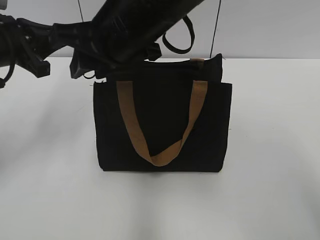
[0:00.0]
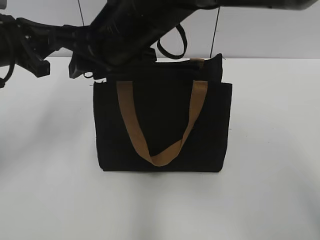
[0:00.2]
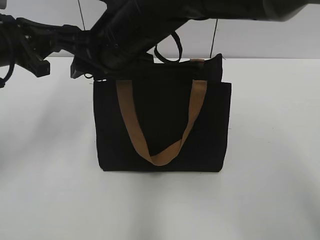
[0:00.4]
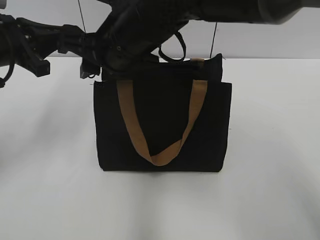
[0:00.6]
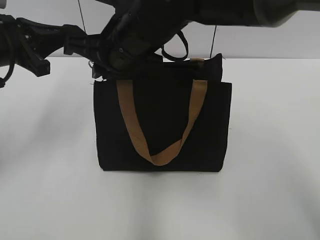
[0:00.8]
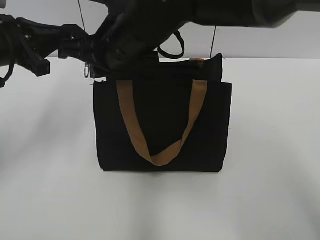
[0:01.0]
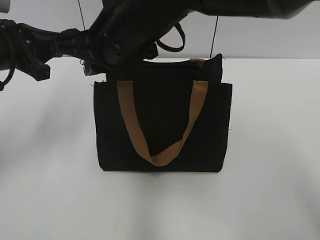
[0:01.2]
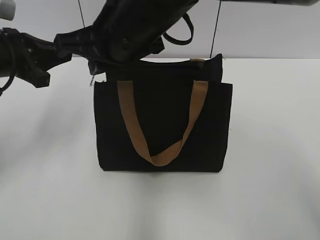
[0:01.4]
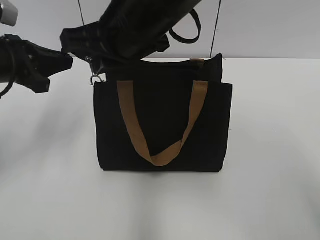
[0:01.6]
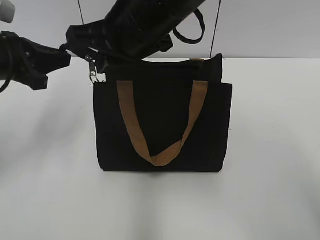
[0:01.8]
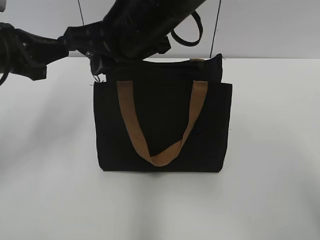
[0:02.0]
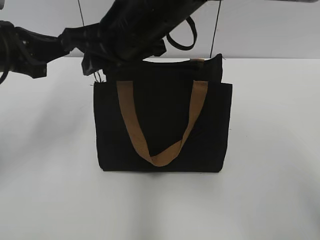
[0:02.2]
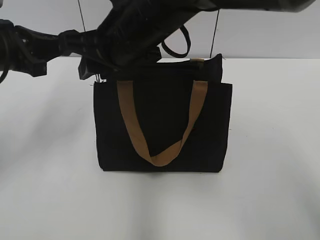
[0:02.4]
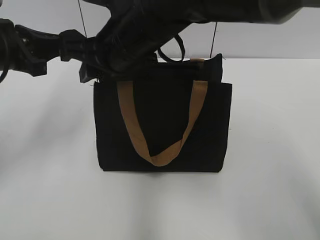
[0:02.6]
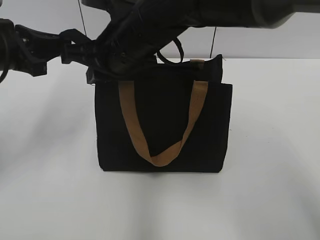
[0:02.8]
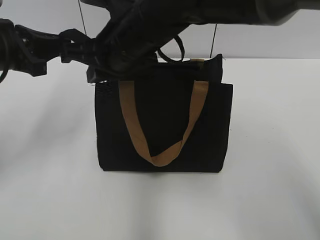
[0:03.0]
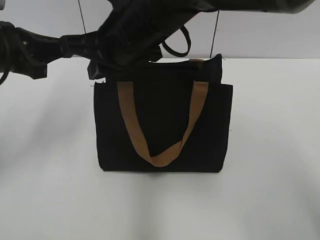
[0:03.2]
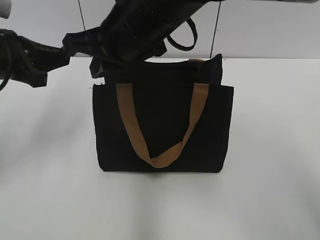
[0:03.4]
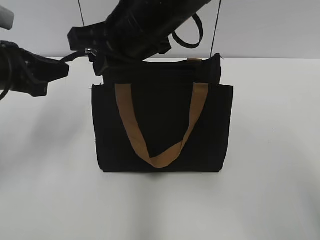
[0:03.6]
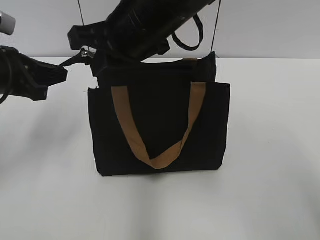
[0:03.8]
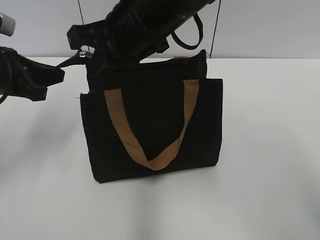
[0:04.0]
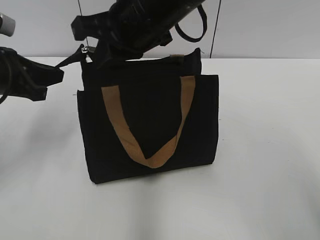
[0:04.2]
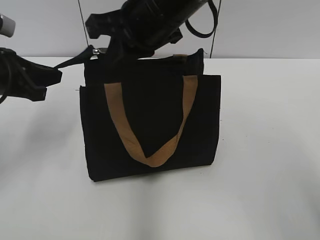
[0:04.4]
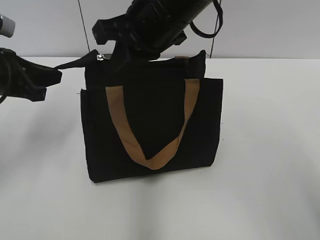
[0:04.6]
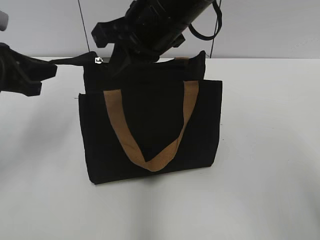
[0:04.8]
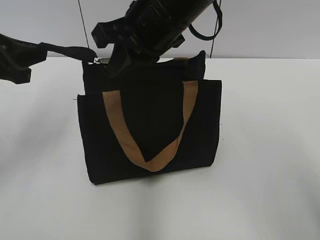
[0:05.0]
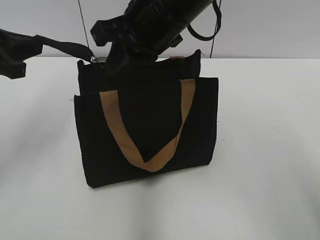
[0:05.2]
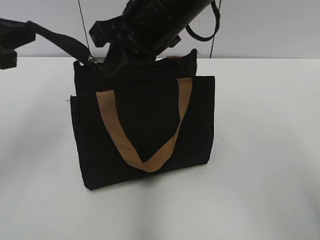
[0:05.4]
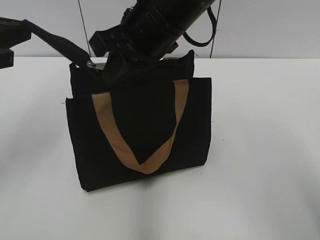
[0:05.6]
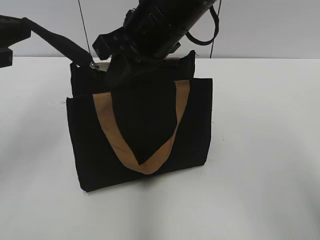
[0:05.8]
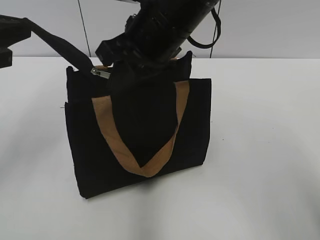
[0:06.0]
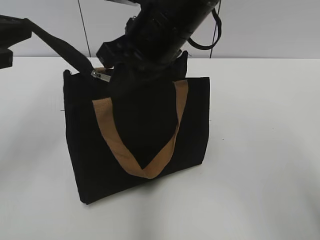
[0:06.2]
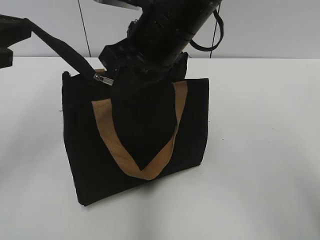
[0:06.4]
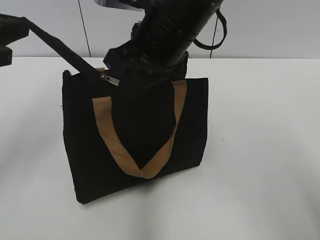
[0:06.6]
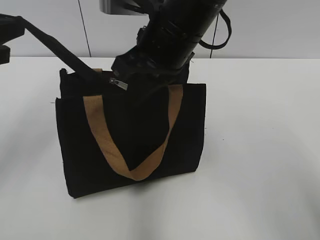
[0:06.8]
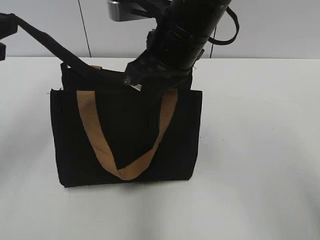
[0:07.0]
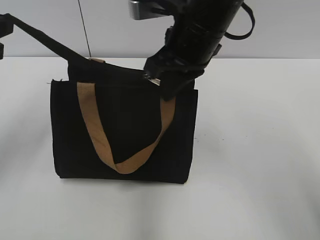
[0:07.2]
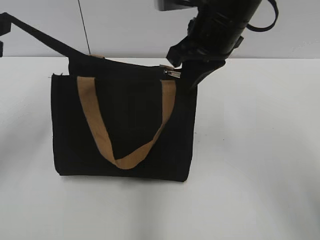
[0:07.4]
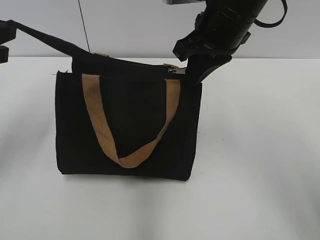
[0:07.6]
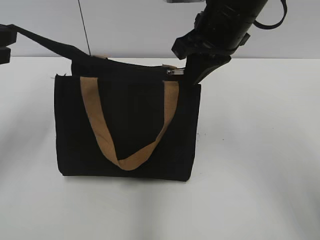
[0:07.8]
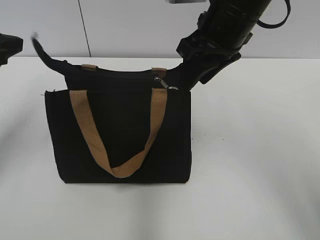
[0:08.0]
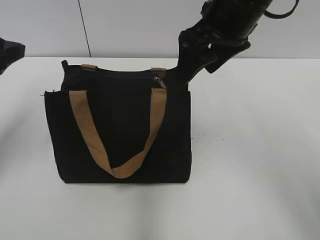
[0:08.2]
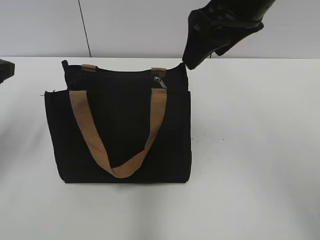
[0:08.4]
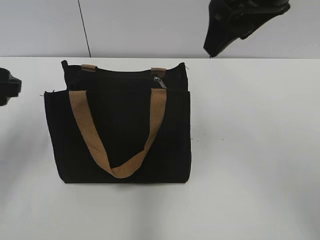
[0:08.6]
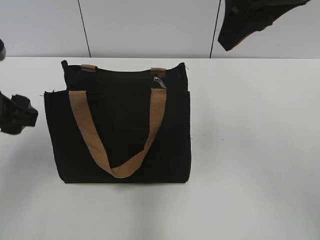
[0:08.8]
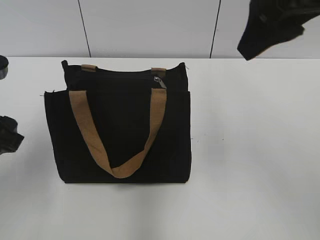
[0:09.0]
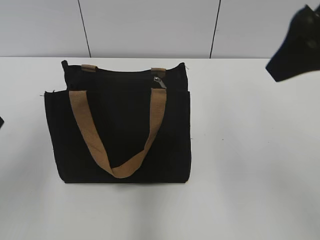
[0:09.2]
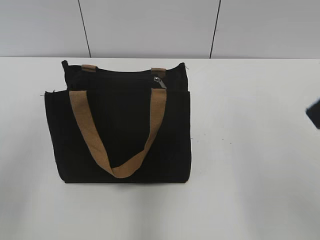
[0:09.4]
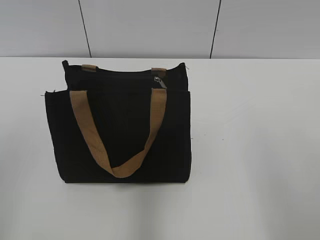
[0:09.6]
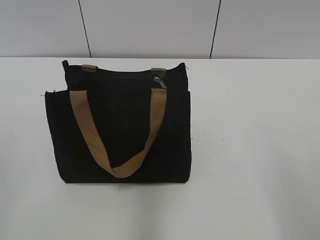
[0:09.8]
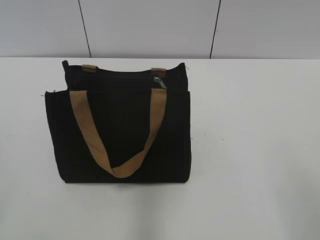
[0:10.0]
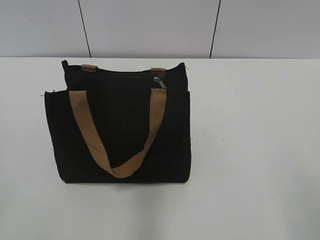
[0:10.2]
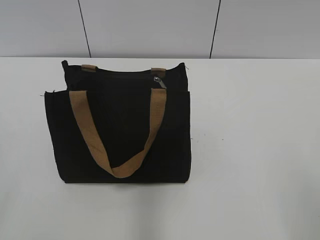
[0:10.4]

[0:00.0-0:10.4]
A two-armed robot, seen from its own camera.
Step, 0:00.0 to 0:07.8: Zip up the bag with your right hand.
0:00.0 to 0:01.4: The right gripper closes up.
0:01.4 to 0:03.0: The right gripper opens, then closes again.
0:03.0 to 0:04.4: The right gripper ends up approximately 5 cm from where it was.
0:04.4 to 0:06.0: The left gripper is displaced upward by some 5 cm.
0:06.0 to 0:07.4: The right gripper goes roughly 5 cm to the right.
0:07.4 to 0:09.0: The left gripper shifts about 5 cm downward, and opens up; the right gripper goes approximately 15 cm upward, backward and to the right, and opens up.
0:09.0 to 0:10.4: The left gripper travels backward by some 20 cm. The right gripper shifts approximately 30 cm backward, to the right and downward.

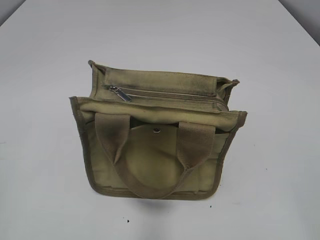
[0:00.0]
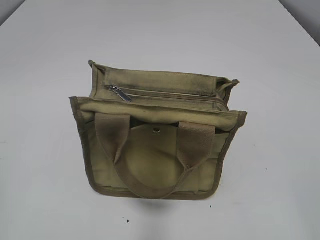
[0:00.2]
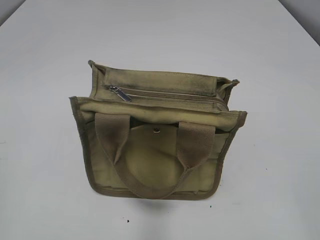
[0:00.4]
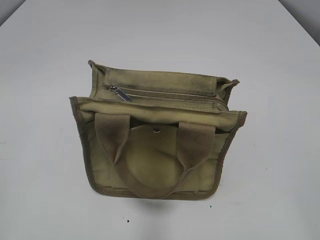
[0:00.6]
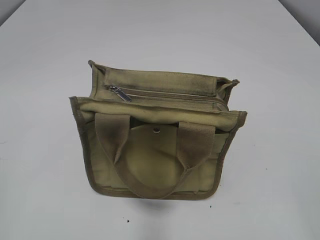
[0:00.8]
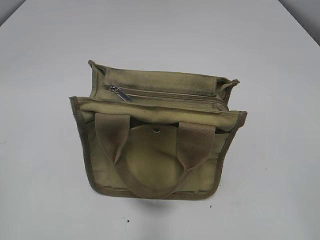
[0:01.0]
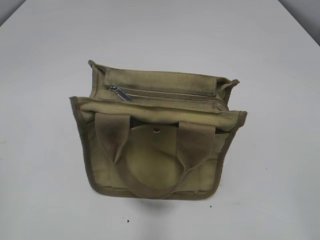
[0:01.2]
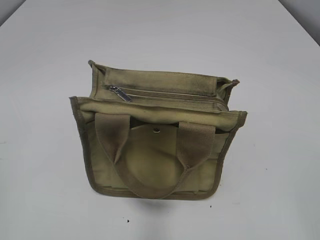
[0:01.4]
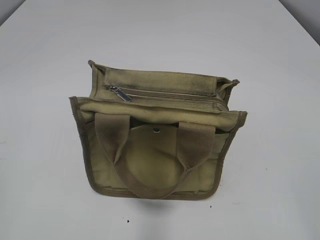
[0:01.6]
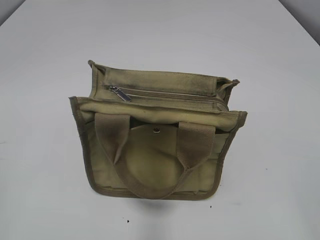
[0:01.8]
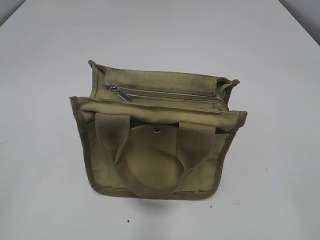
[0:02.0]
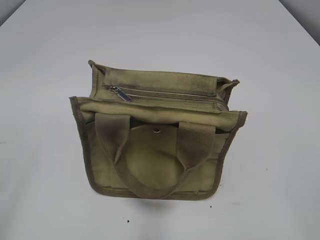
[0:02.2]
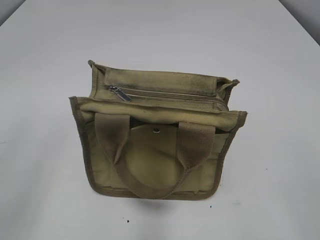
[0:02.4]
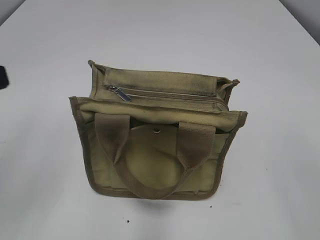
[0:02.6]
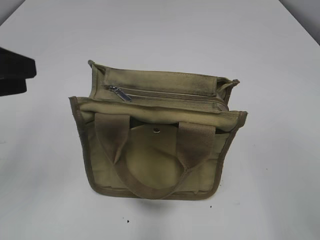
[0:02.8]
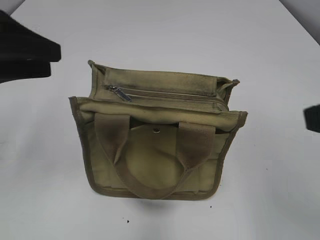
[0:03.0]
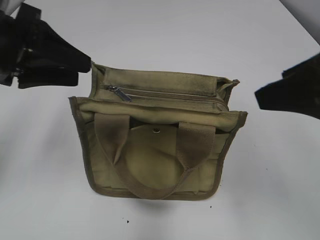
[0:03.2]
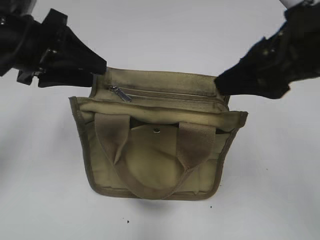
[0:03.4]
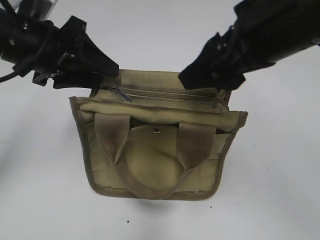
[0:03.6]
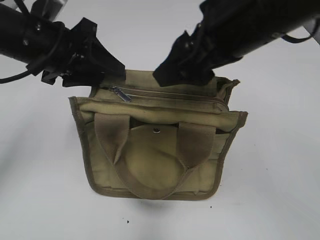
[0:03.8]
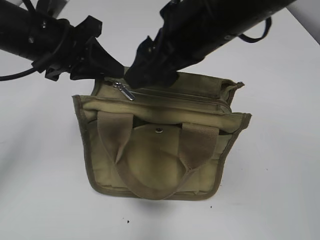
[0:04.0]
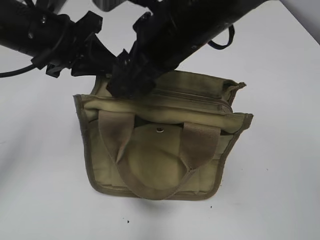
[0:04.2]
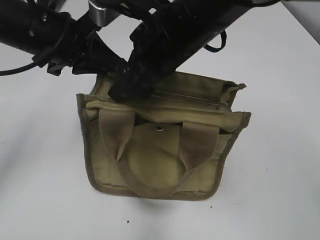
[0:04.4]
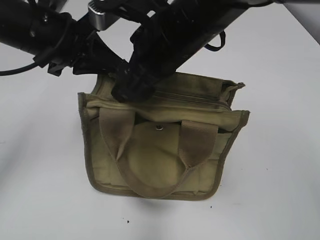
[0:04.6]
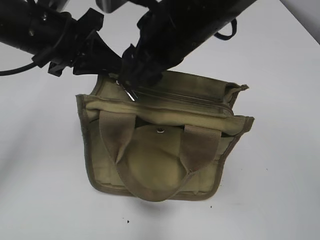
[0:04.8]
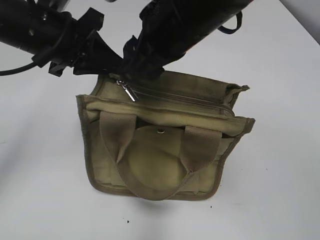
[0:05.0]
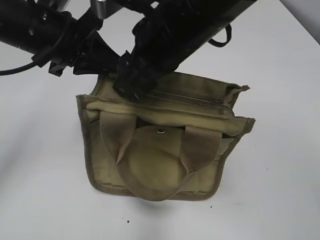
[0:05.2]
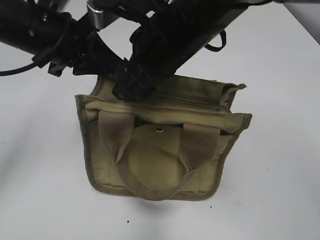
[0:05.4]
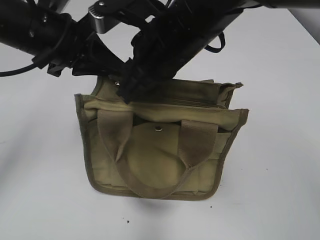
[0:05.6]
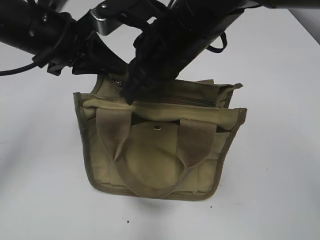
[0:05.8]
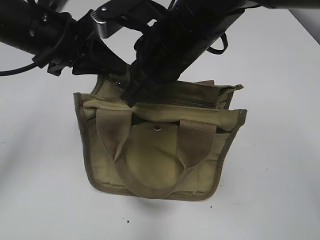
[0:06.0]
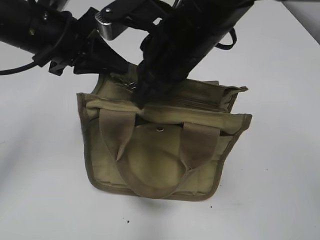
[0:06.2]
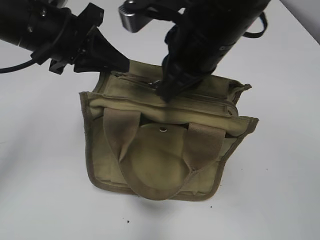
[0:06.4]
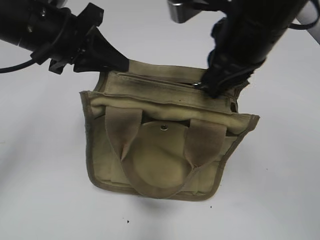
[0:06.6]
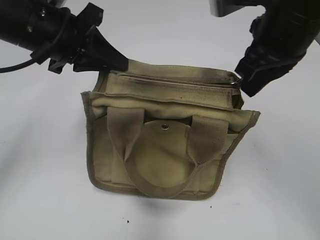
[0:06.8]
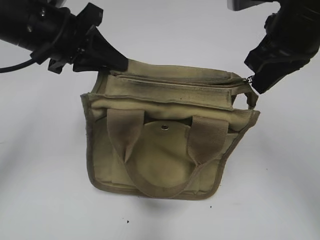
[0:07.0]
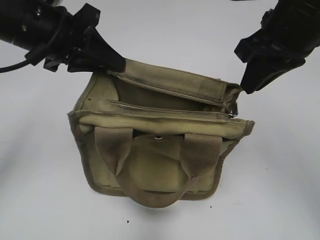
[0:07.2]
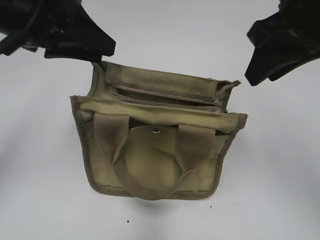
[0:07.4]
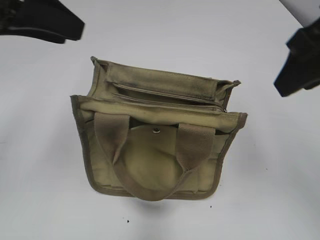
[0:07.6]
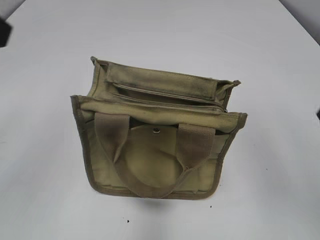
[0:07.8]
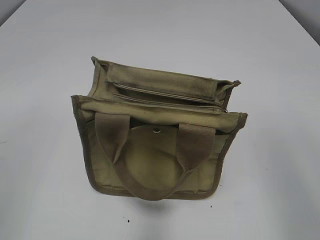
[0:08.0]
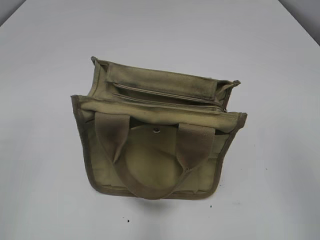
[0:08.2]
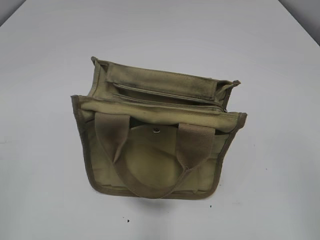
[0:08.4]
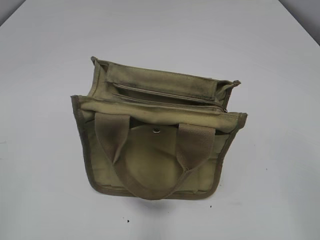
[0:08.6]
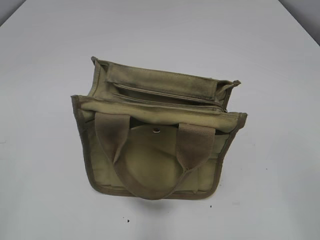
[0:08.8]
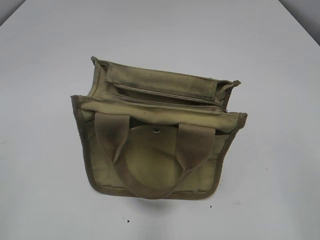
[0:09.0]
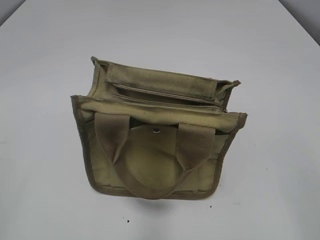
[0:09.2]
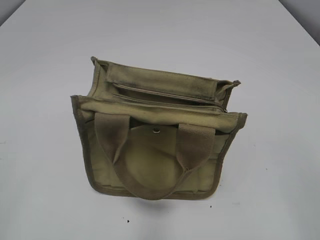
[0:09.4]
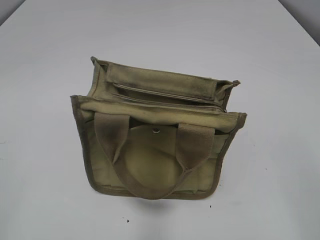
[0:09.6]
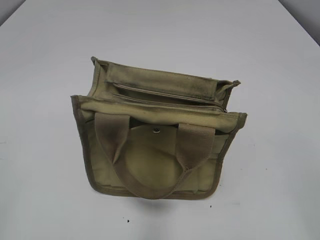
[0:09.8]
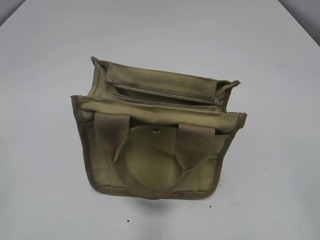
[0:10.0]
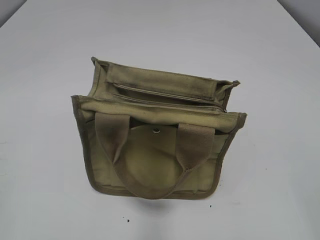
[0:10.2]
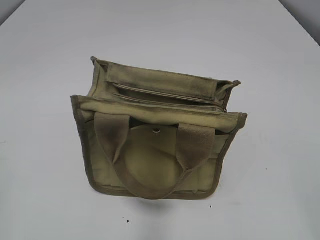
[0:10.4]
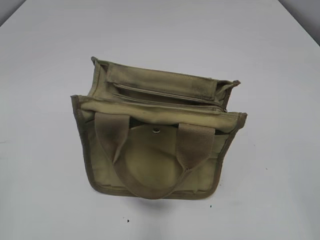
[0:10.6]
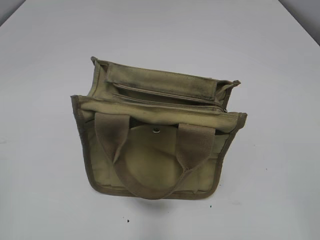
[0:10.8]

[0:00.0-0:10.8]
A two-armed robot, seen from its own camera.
Step, 0:00.0 to 0:07.0: Pull open the zipper with your right hand.
0:01.6 to 0:03.0: The right gripper goes some 15 cm forward and upward, while the left gripper travels forward by approximately 25 cm.
0:03.0 to 0:04.6: The right gripper moves to the left and forward, some 25 cm; the left gripper shifts roughly 10 cm to the right and forward, and closes its fingers.
0:04.6 to 0:06.2: The right gripper closes up.
0:06.2 to 0:07.8: The right gripper goes approximately 20 cm to the right and backward, and opens up; the left gripper is displaced backward, upward and to the left by roughly 20 cm, and opens its fingers.

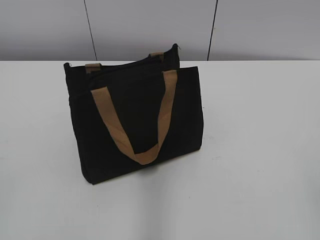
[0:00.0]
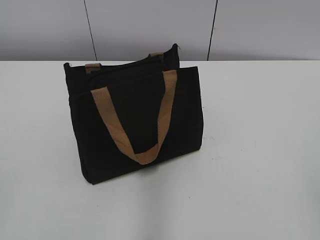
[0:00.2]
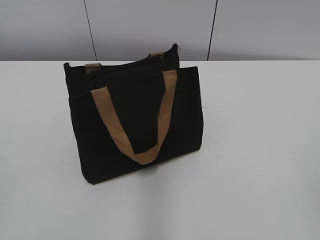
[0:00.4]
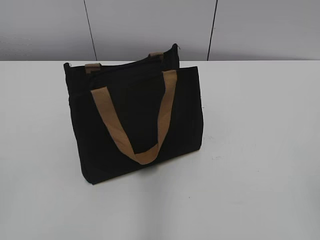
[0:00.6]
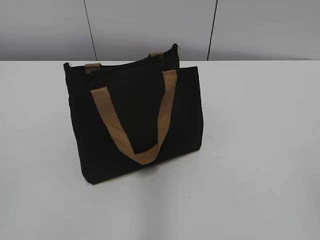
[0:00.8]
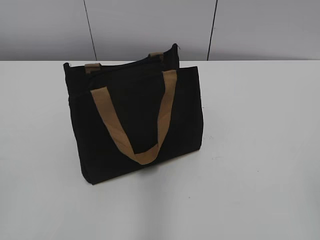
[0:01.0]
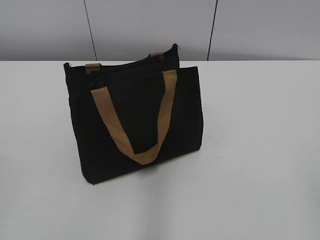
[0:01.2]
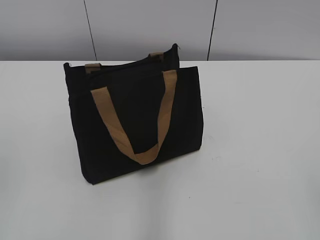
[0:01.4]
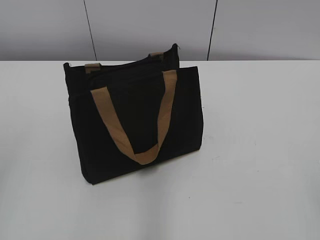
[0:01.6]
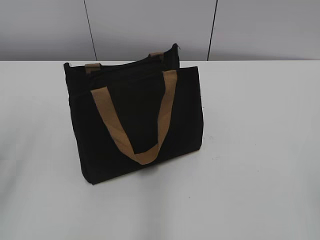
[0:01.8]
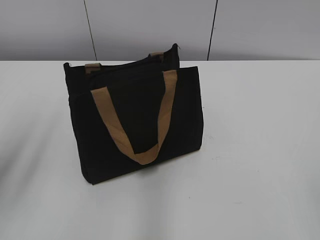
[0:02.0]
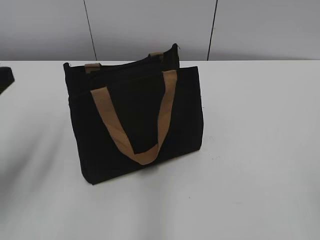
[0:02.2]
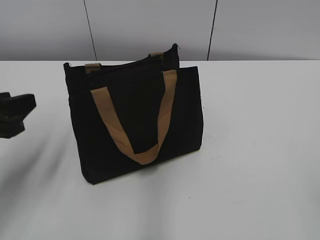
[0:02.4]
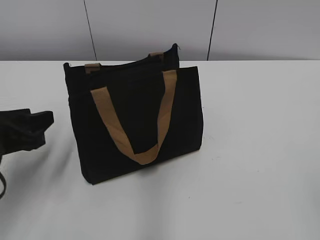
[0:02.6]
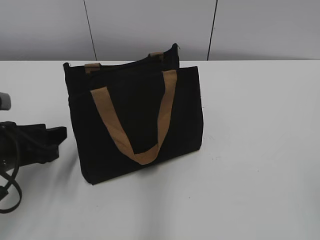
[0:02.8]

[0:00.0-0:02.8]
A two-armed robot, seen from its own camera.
0:01.4 to 0:02.8: The left gripper travels forward and downward by approximately 25 cm.
